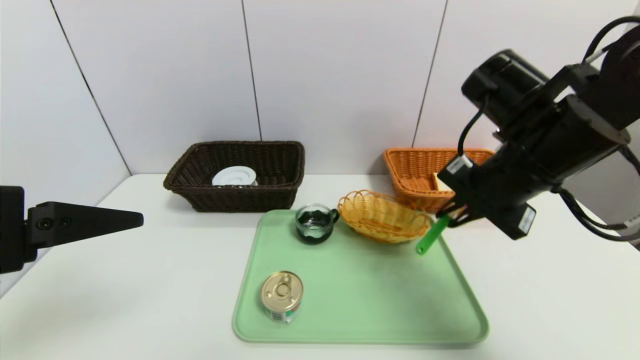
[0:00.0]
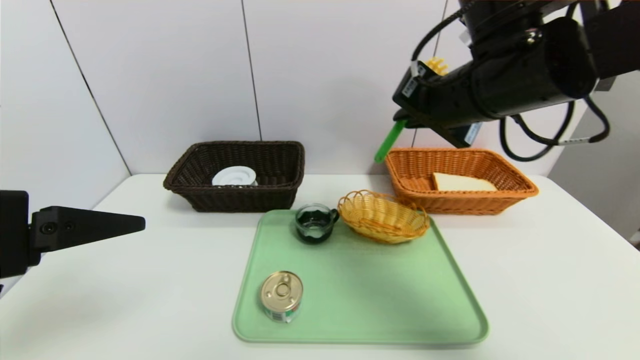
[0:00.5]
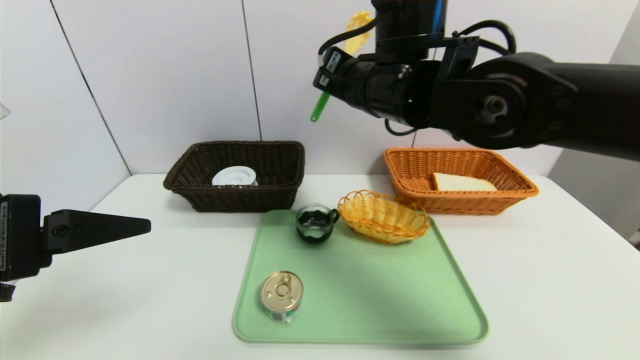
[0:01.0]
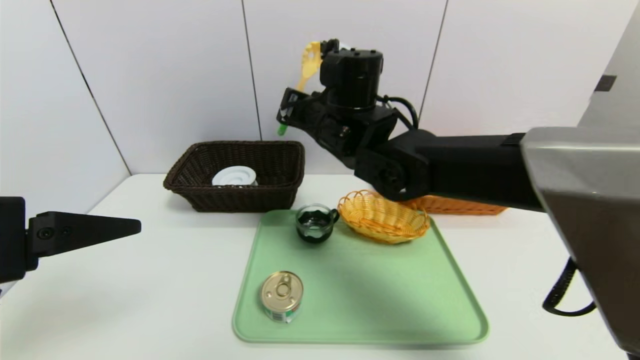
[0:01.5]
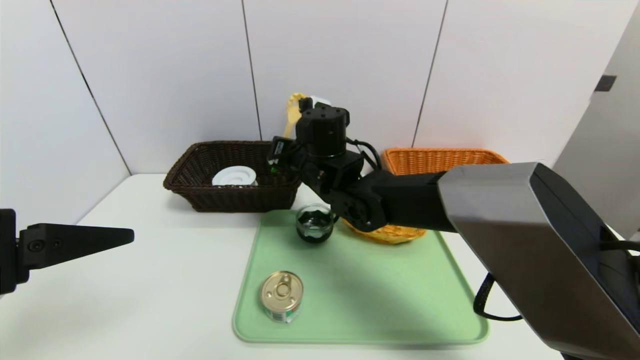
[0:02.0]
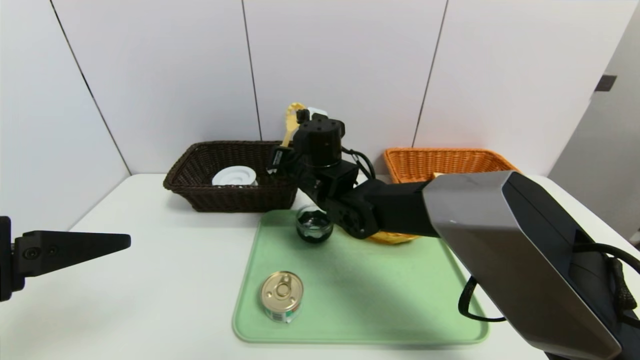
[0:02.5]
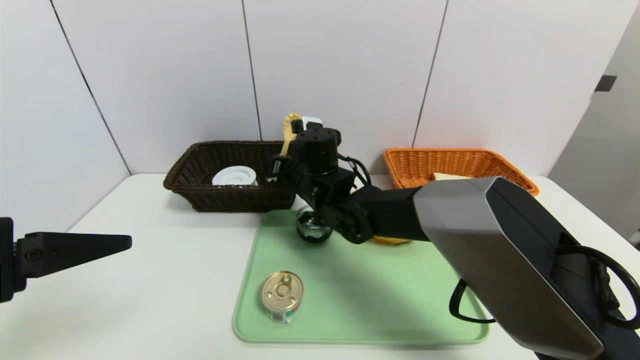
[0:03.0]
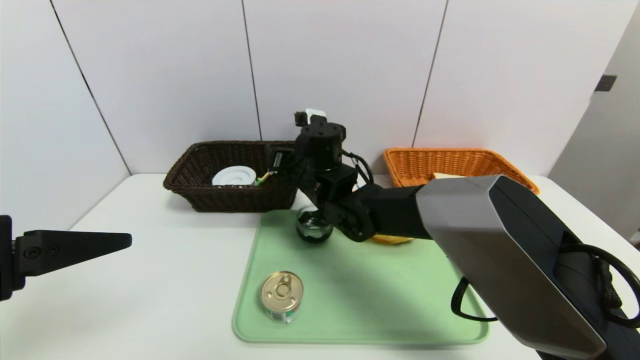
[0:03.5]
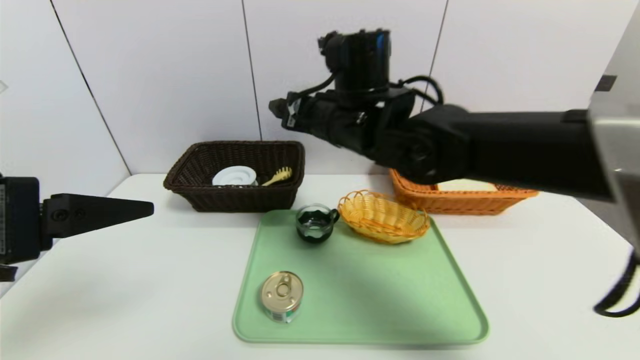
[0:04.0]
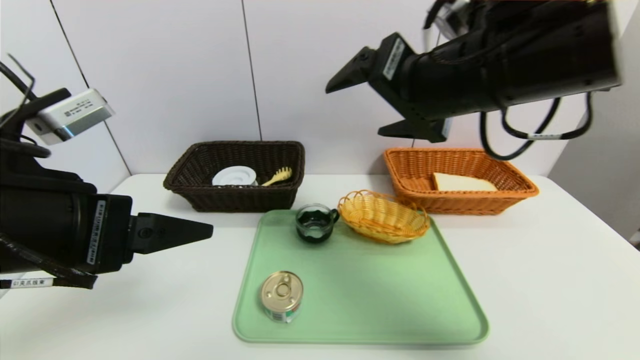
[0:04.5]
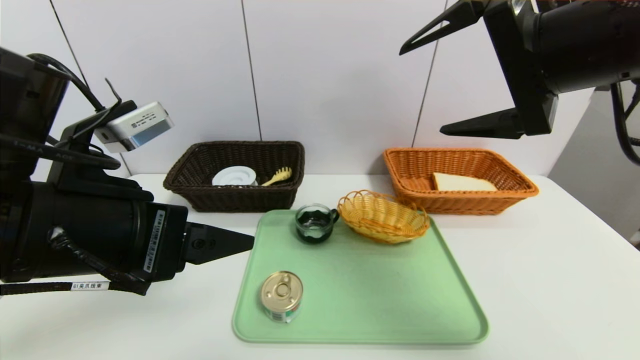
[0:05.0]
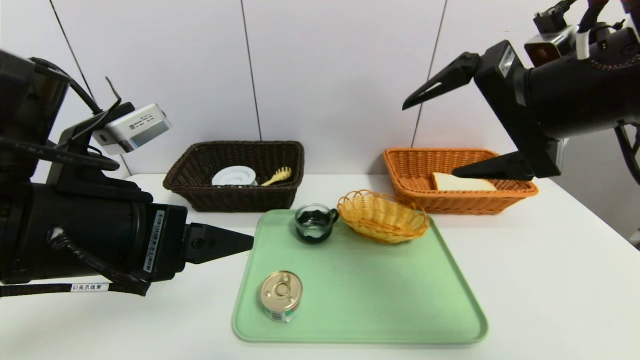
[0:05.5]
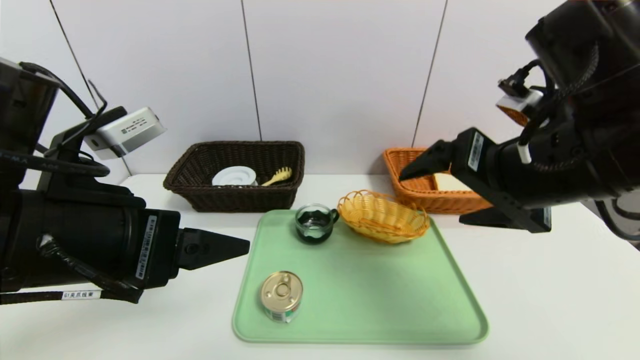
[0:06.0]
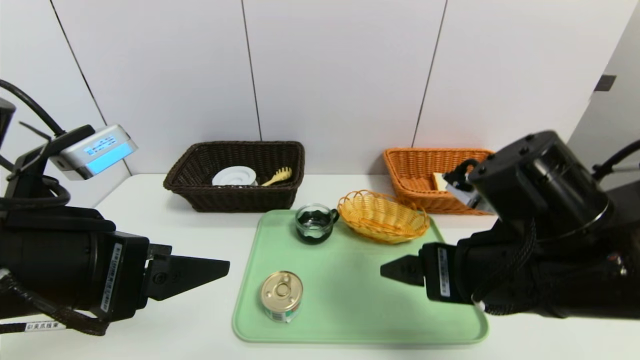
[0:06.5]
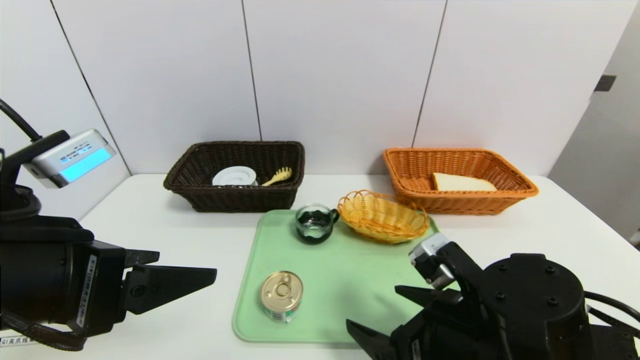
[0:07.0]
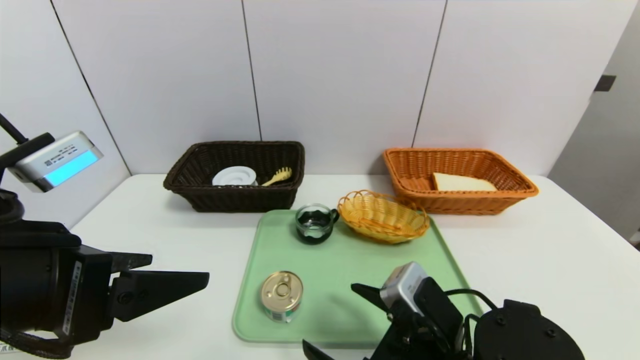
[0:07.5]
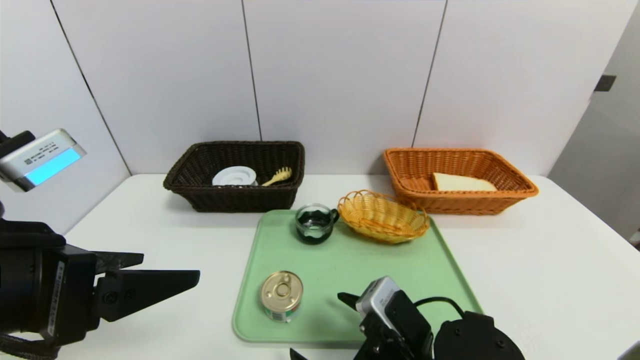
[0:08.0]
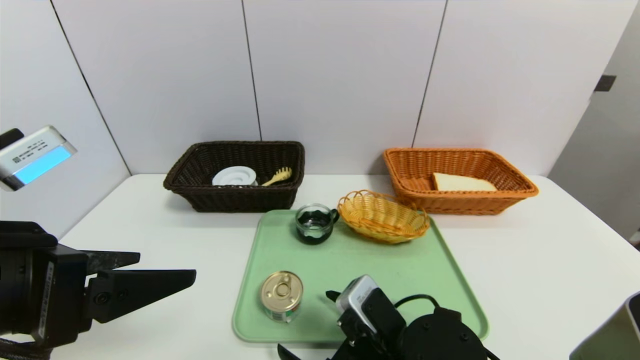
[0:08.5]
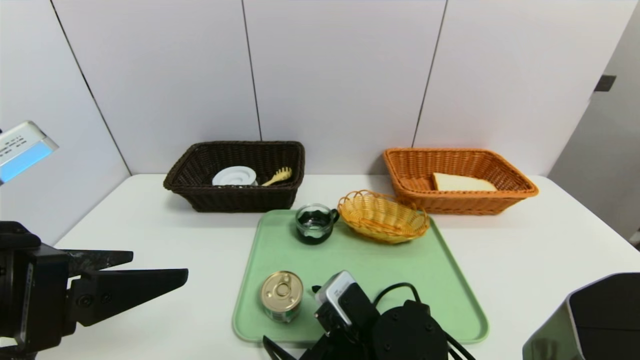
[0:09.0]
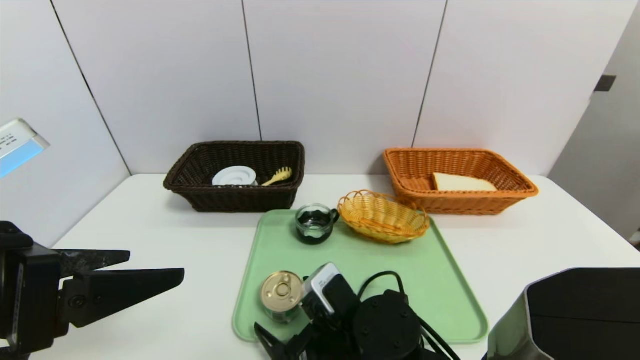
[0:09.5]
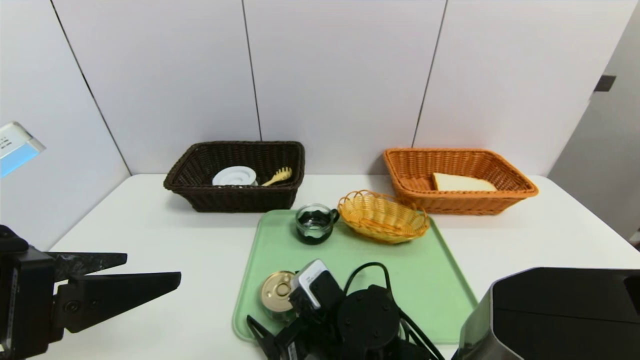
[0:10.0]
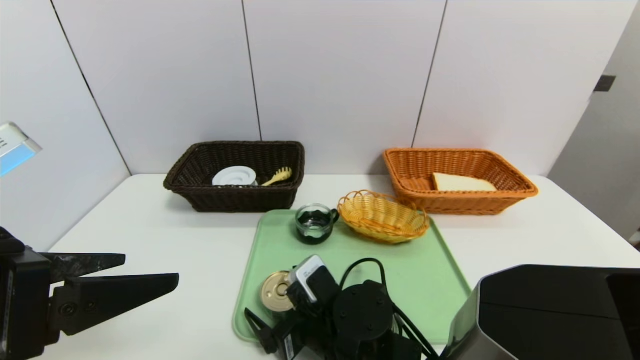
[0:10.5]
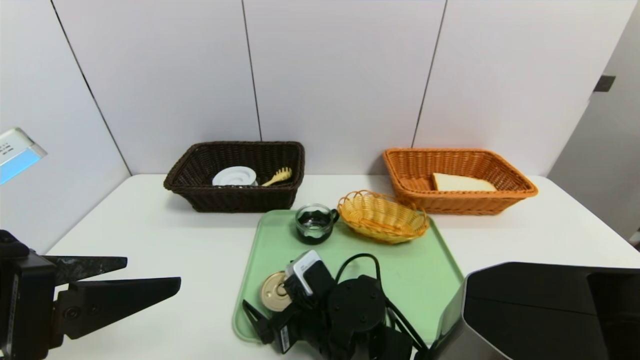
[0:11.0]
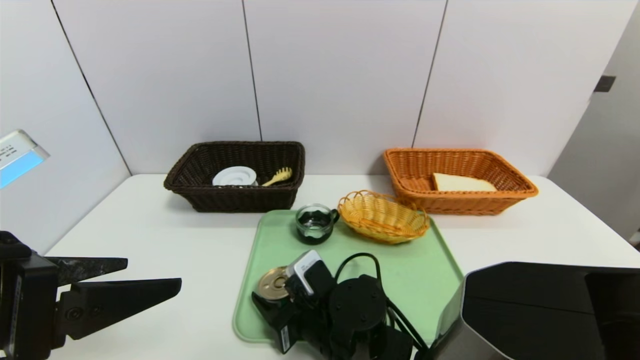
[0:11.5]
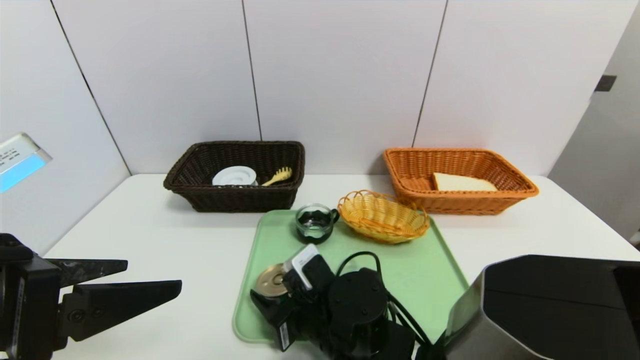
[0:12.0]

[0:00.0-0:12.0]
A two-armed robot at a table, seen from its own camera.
Task of the whole recording: place the food in the right basket with the right gripper, and place the non food items in the left basket with the left gripper.
0:00.0 to 0:02.0: The right gripper shifts some 25 cm to the left and forward.
0:02.0 to 0:04.0: The right gripper is displaced upward by roughly 10 cm, and opens up.
0:04.0 to 0:06.0: The left gripper shifts approximately 5 cm to the right; the right gripper is displaced to the right and backward by about 20 cm.
0:06.0 to 0:08.0: The right gripper is displaced downward by about 20 cm; the left gripper moves about 5 cm.
0:08.0 to 0:10.0: The right gripper travels to the left and forward by approximately 10 cm.
0:10.0 to 0:12.0: The right gripper closes.

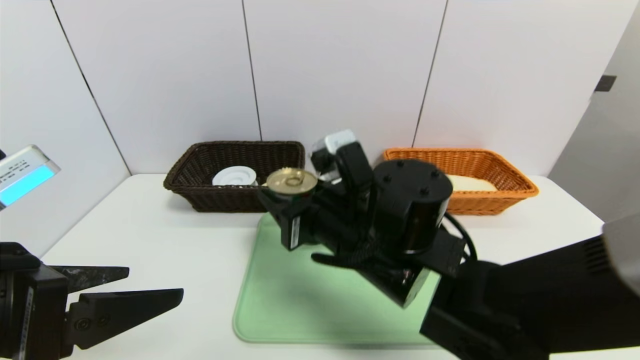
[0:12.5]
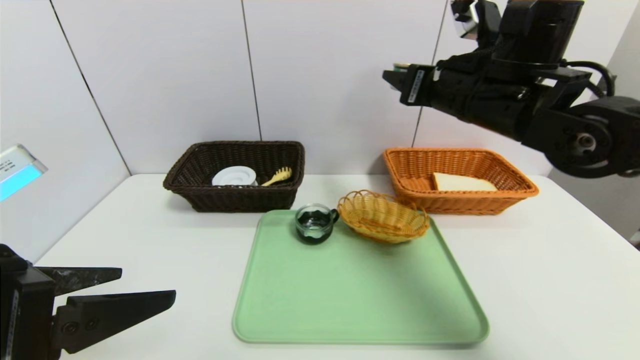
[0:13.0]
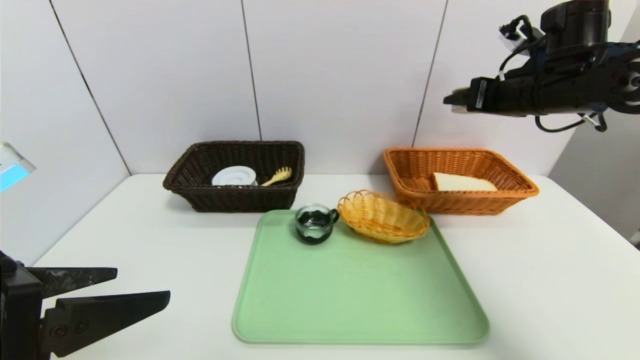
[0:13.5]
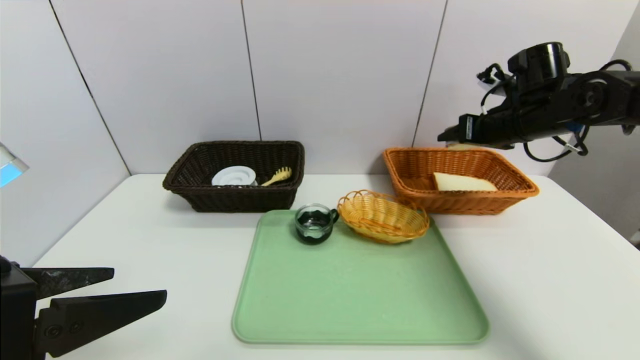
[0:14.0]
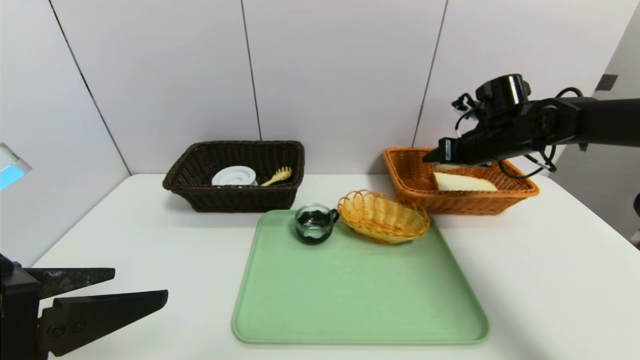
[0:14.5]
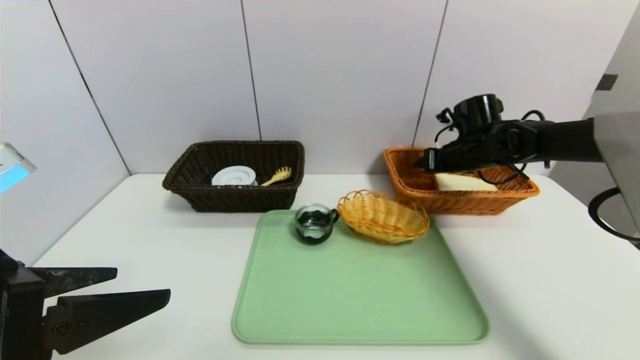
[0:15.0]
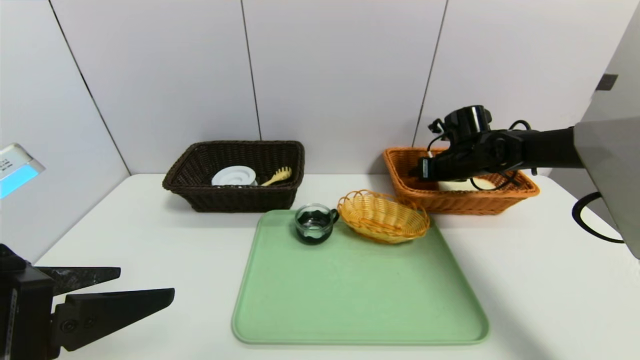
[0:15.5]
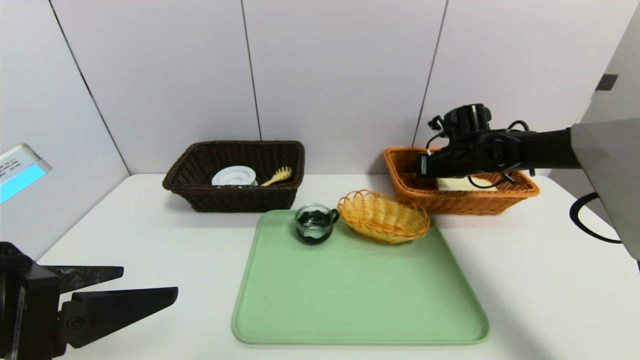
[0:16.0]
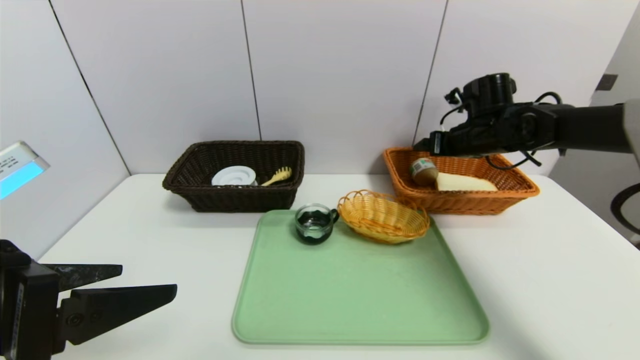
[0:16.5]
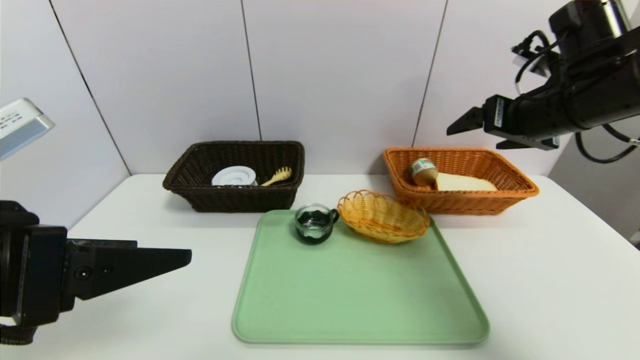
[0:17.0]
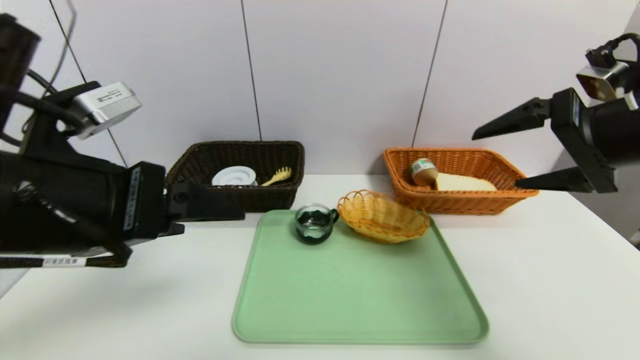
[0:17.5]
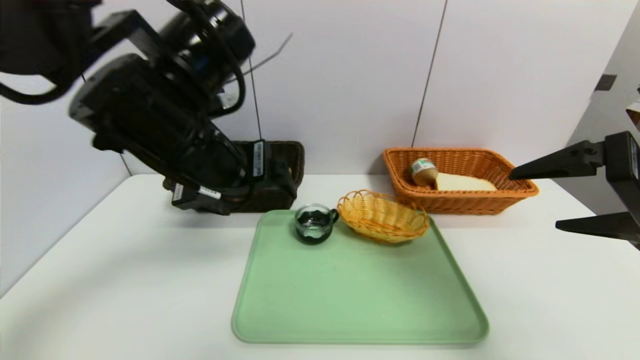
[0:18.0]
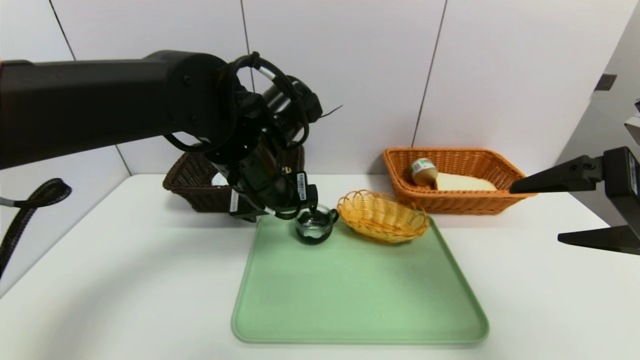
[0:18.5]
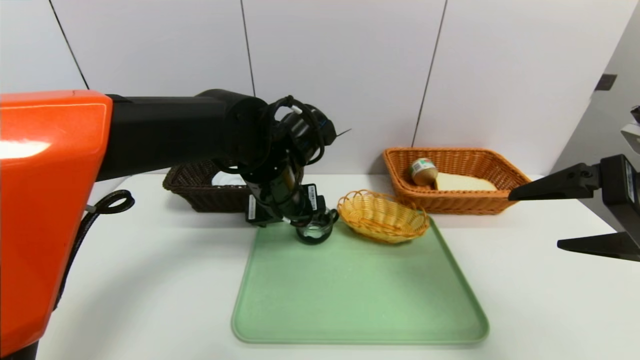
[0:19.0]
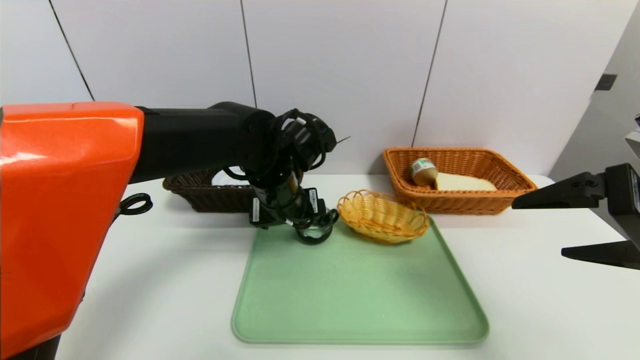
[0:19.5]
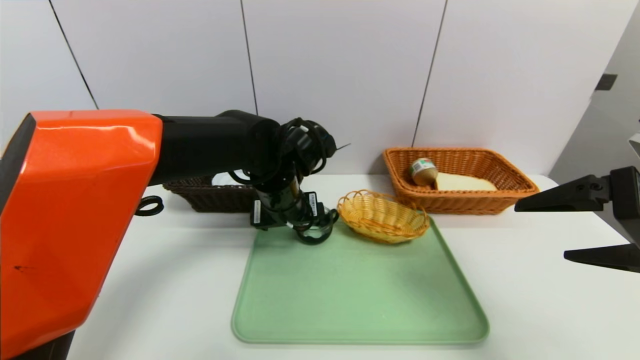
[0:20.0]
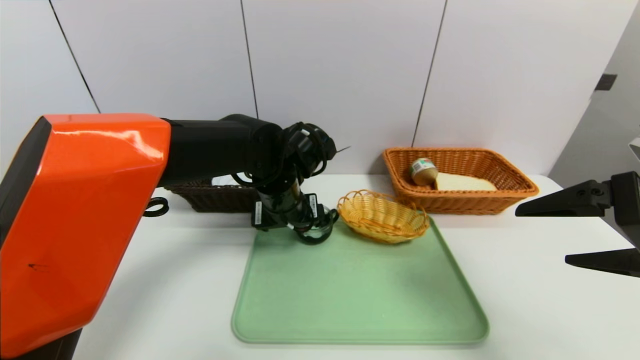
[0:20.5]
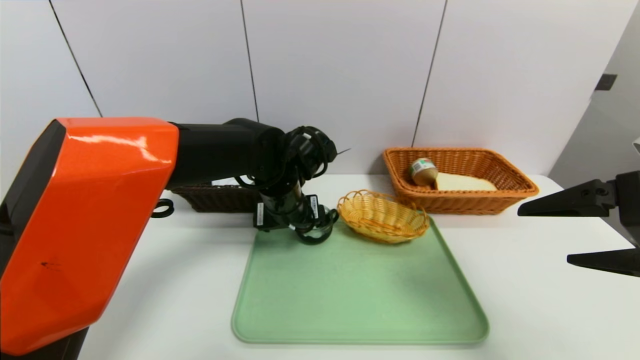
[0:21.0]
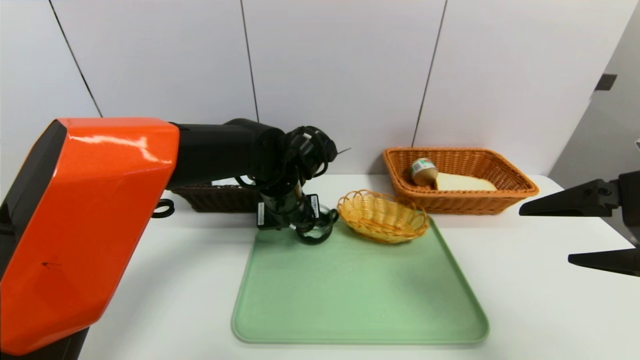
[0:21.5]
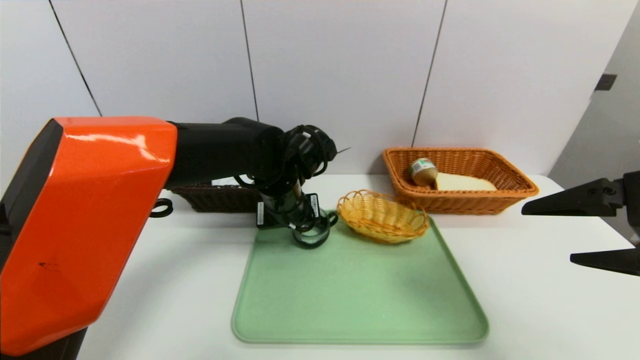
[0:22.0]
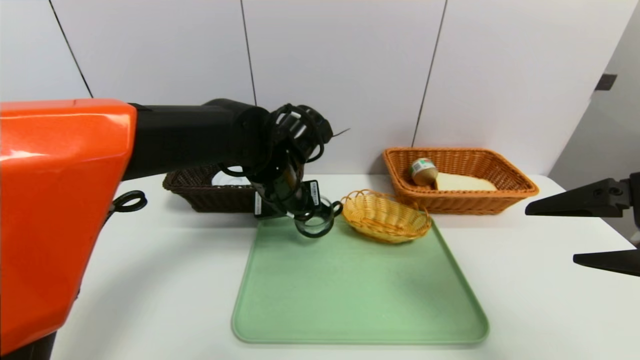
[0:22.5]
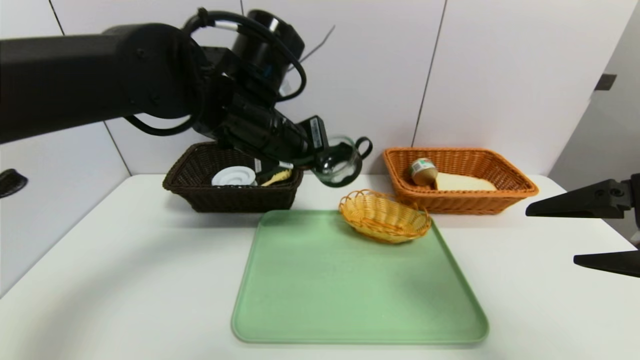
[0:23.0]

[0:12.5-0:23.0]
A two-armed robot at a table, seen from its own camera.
Task of the whole recording: place the food in the right basket with the right gripper, and place the non food items in the left basket with the left gripper.
Step, 0:12.5 to 0:16.0: Grasp the tin and put it in the right basket.
0:12.5 to 0:14.5: The right gripper is displaced to the right and forward by some 30 cm.
0:16.5 to 0:19.0: The left gripper shifts roughly 30 cm forward and to the right. Meanwhile the right gripper heads backward, covering some 30 cm.
0:19.0 to 0:21.0: The left gripper shifts by approximately 5 cm.
0:21.0 to 0:23.0: The left gripper goes roughly 15 cm upward, and closes up.
